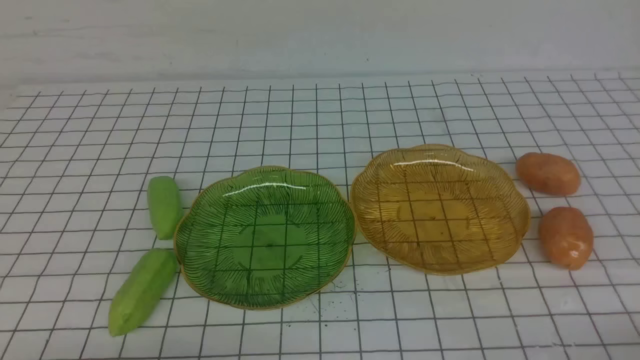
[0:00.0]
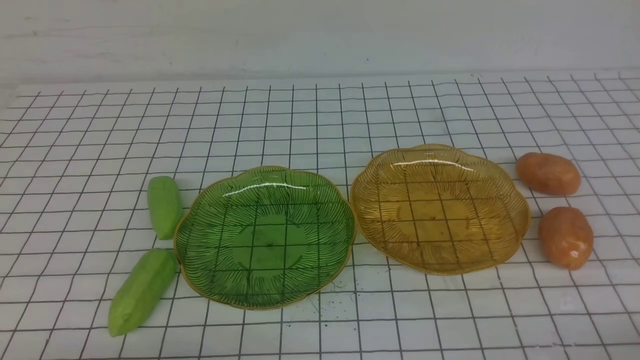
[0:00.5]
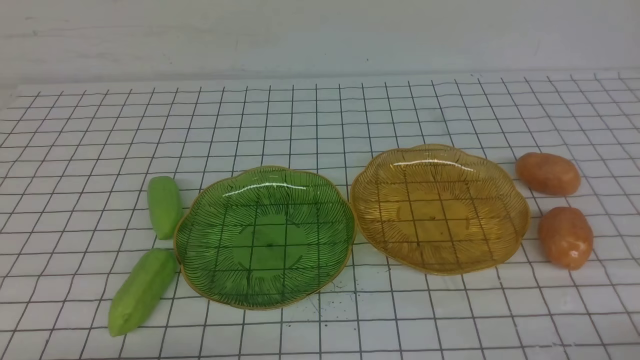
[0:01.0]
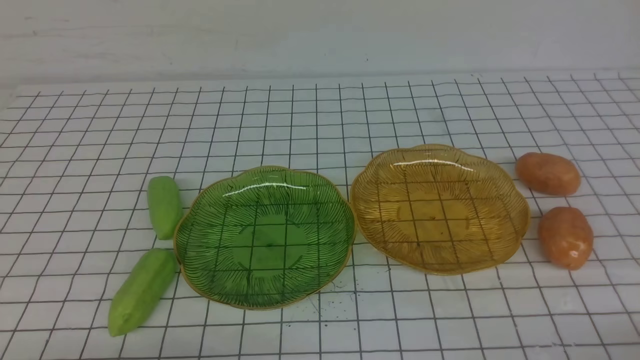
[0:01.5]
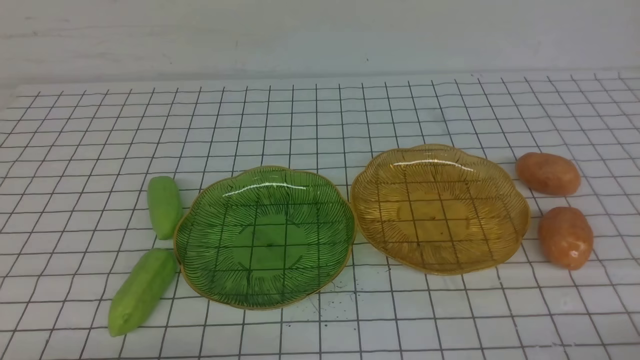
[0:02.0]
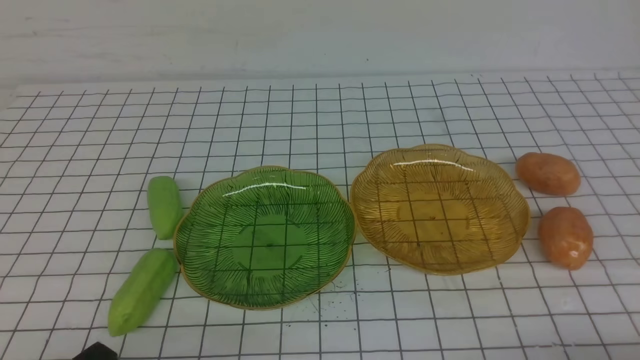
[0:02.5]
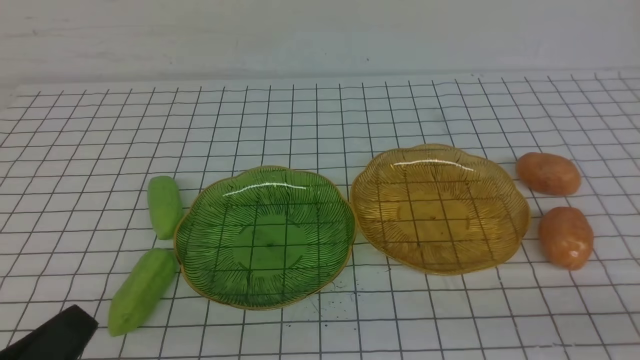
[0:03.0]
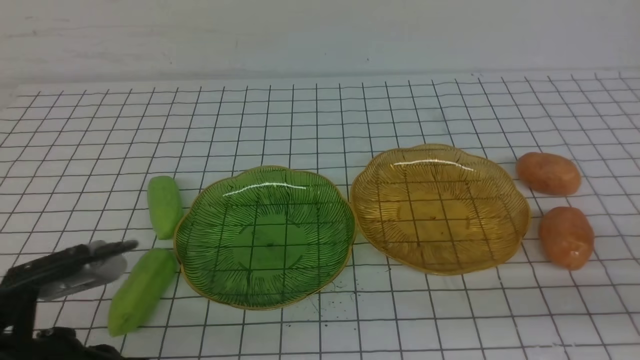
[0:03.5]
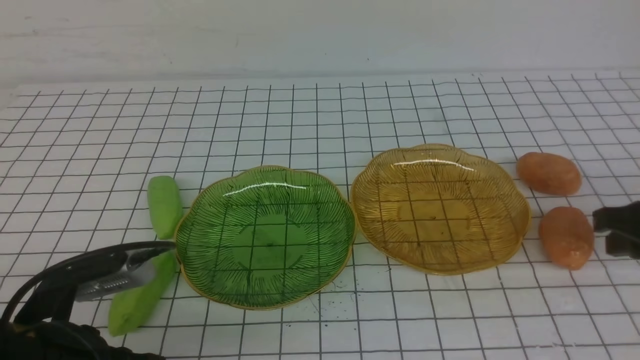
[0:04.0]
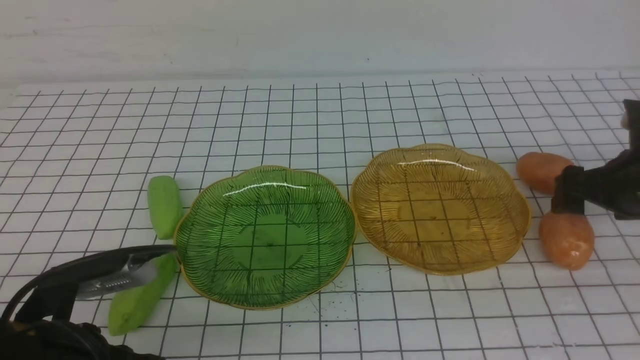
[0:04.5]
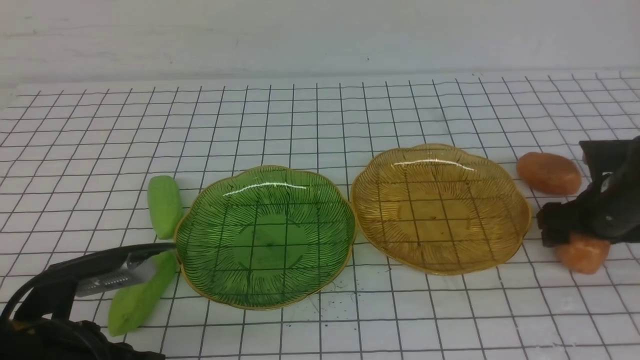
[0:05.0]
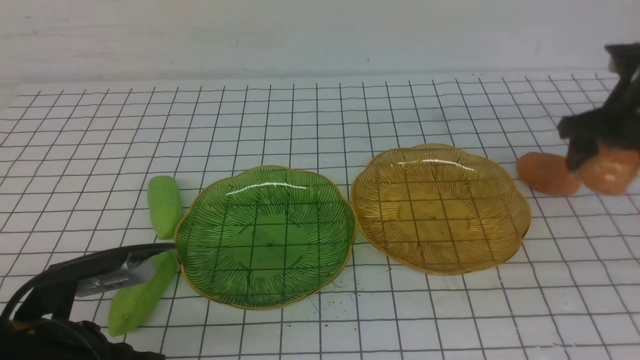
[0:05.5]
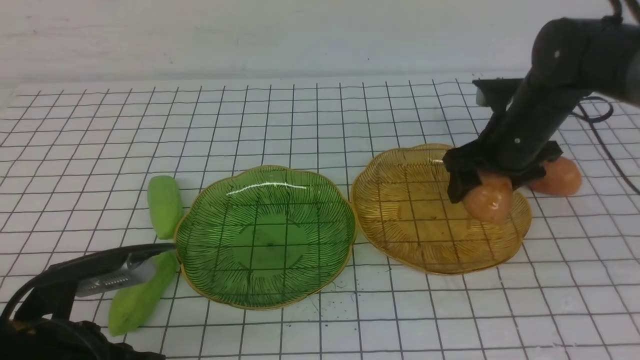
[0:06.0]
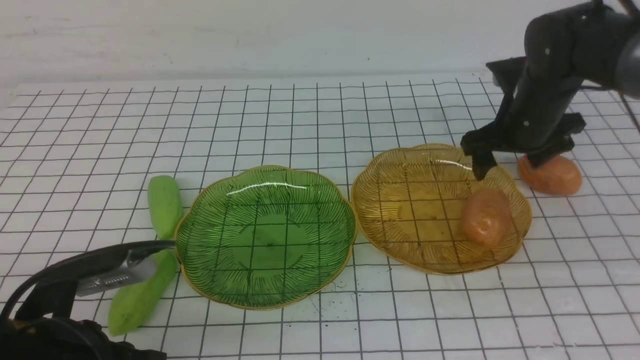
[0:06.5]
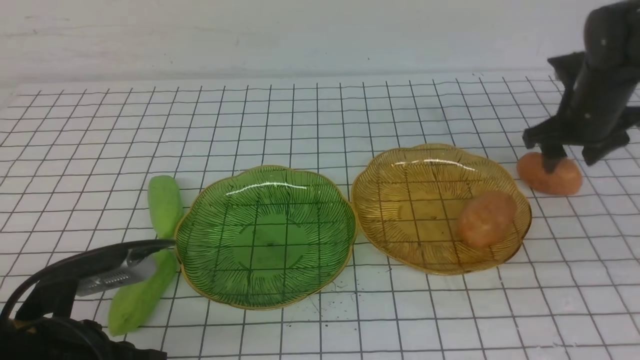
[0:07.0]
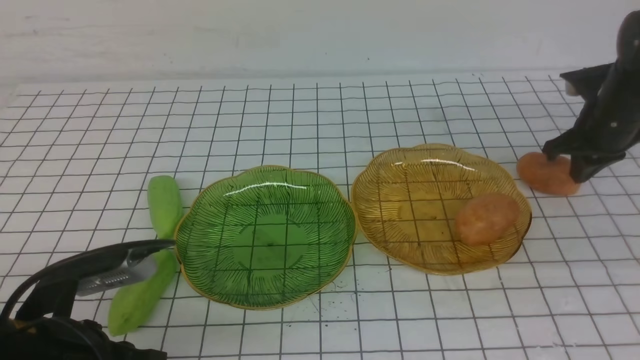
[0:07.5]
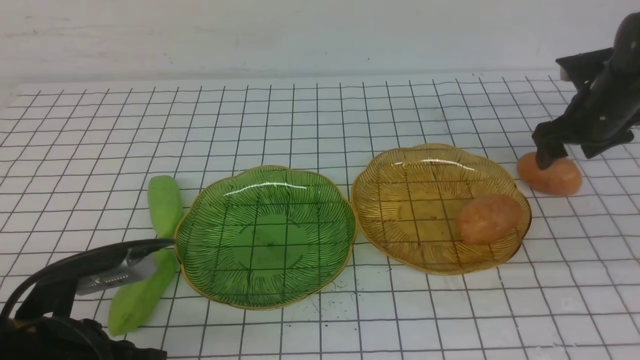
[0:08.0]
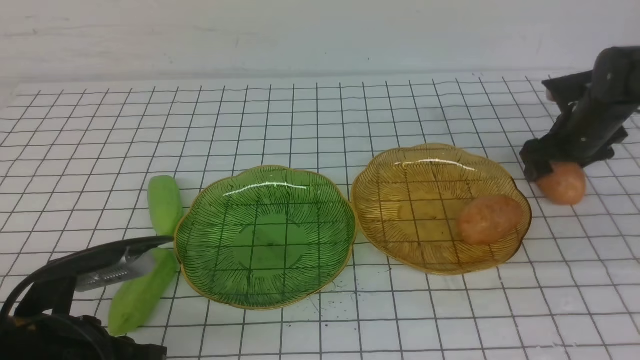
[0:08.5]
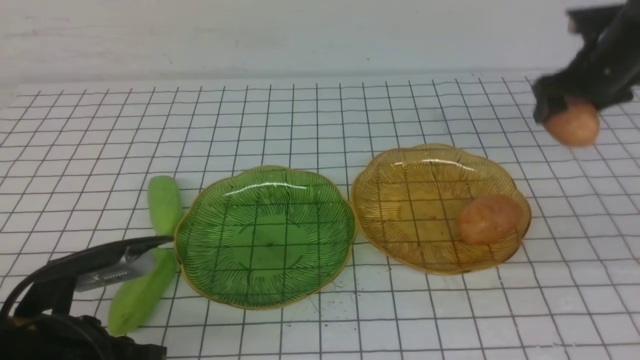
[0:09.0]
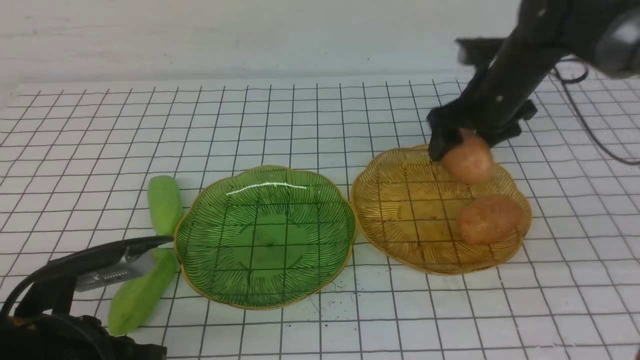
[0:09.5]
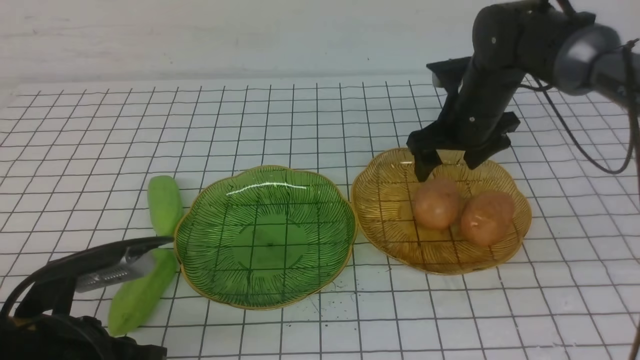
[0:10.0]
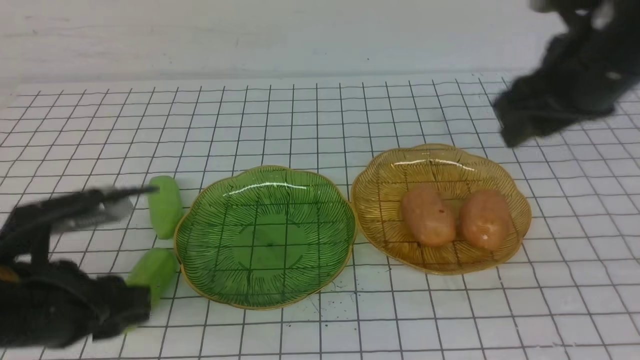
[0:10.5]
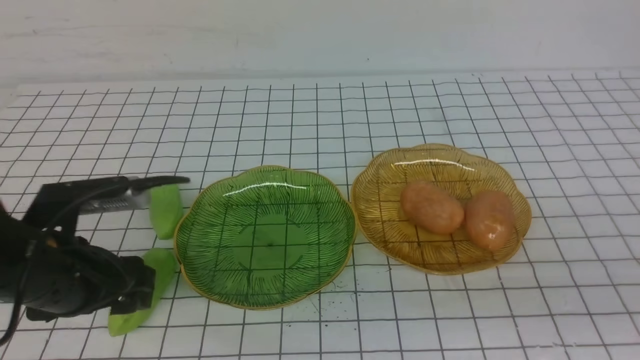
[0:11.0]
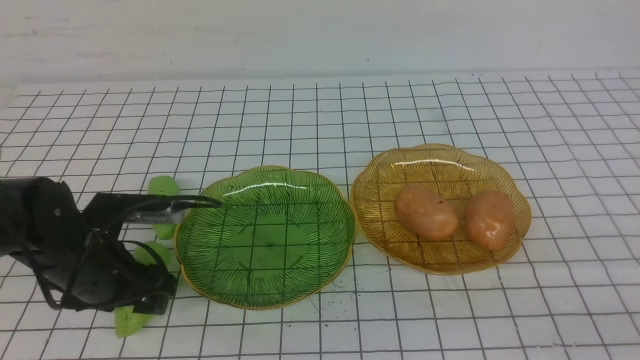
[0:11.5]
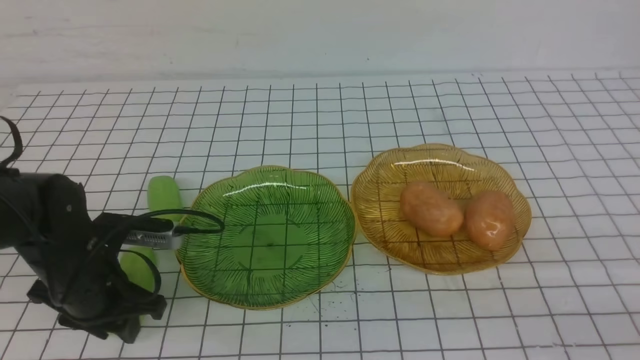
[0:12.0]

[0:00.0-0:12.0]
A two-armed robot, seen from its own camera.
Step, 0:00.0 to 0:09.5: Grab a potato with your right arm and put it on the right plate.
0:02.0 to 0:04.0: The left gripper goes roughly 10 cm forward; the right gripper is displaced forward and upward by about 20 cm.
0:04.0 to 0:06.0: The right gripper travels forward and to the left by some 20 cm, and opens its fingers.
0:06.0 to 0:08.0: The right gripper moves to the right and forward, some 10 cm, and closes and opens again.
0:08.0 to 0:10.0: The right gripper moves to the left, about 15 cm.
0:10.0 to 0:12.0: The left gripper heads forward and downward, covering approximately 15 cm, and opens. Meanwhile the right gripper goes about 40 cm backward, and closes up.

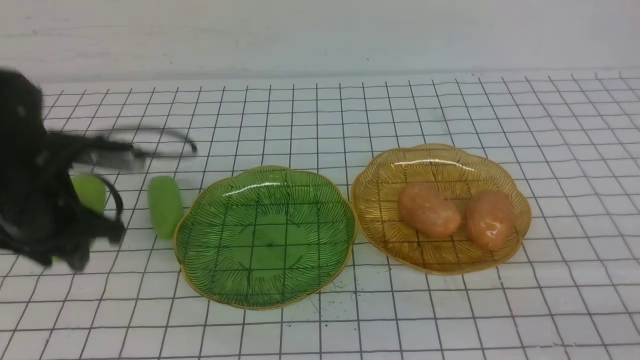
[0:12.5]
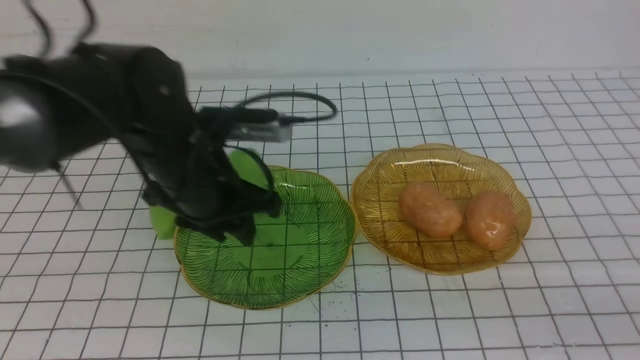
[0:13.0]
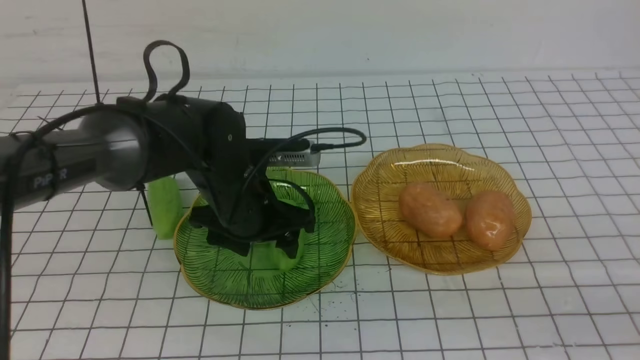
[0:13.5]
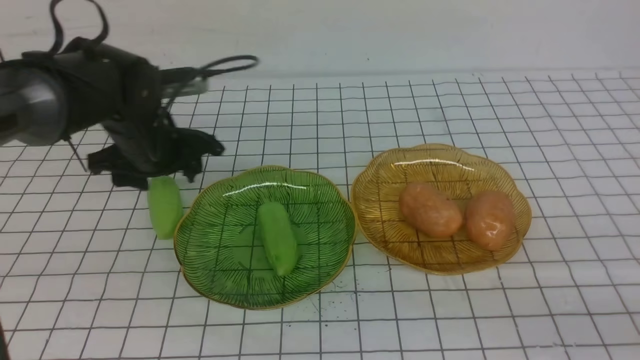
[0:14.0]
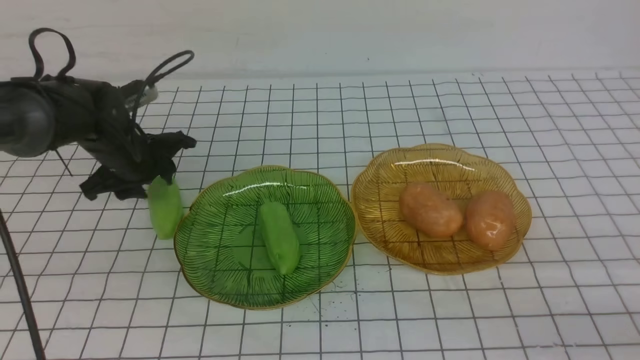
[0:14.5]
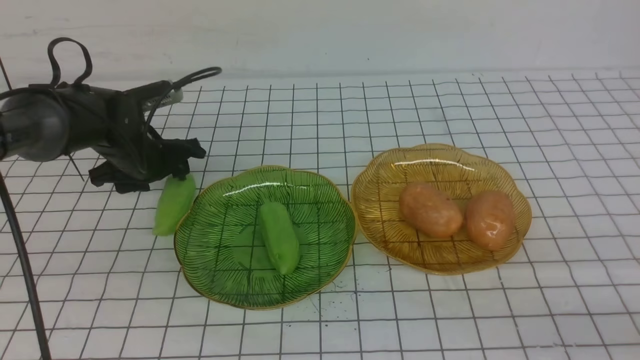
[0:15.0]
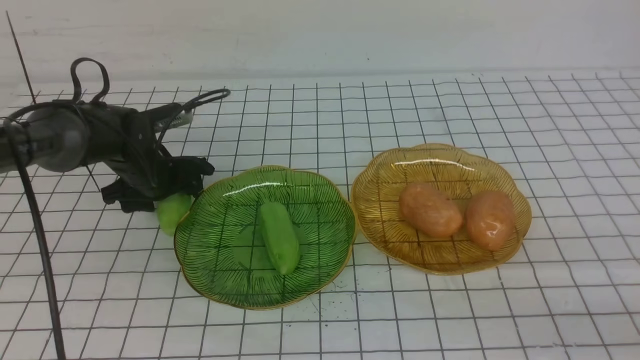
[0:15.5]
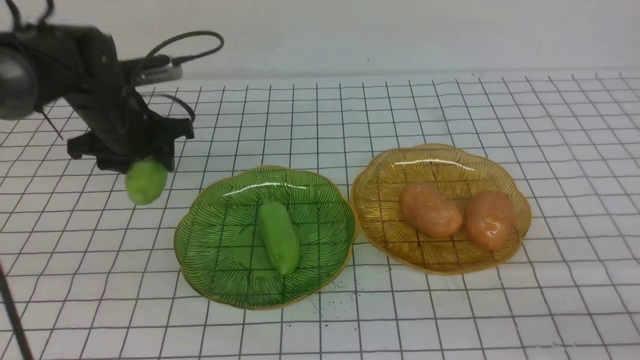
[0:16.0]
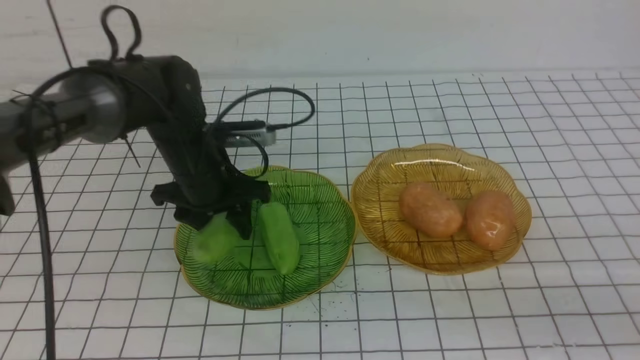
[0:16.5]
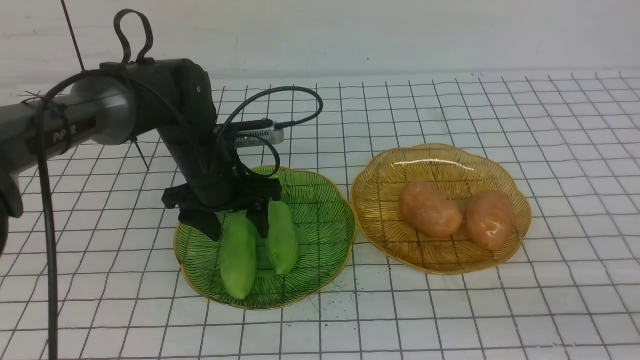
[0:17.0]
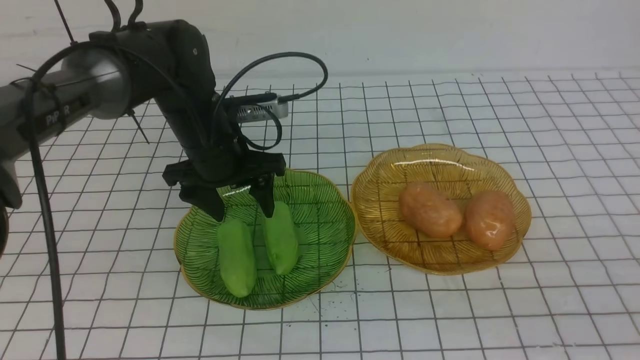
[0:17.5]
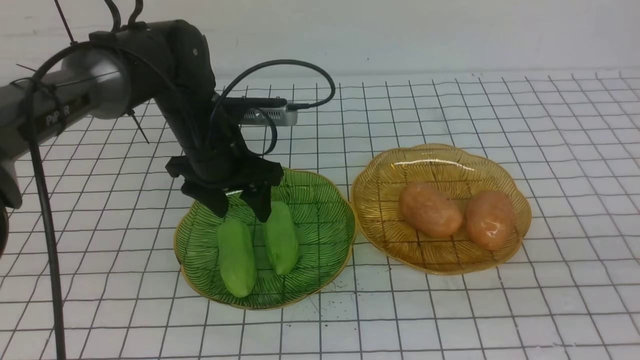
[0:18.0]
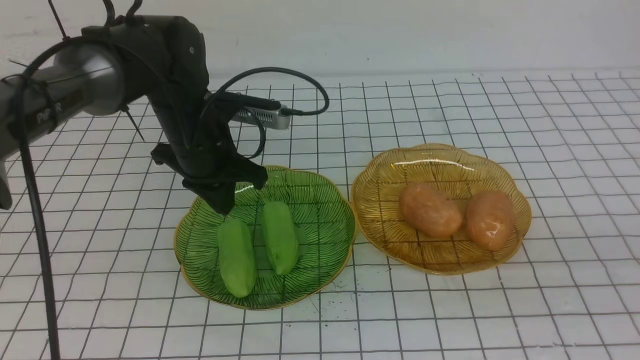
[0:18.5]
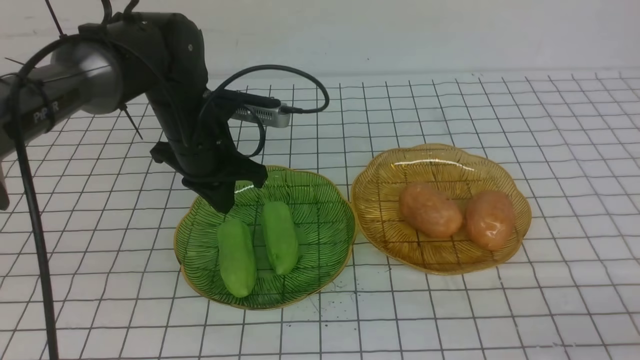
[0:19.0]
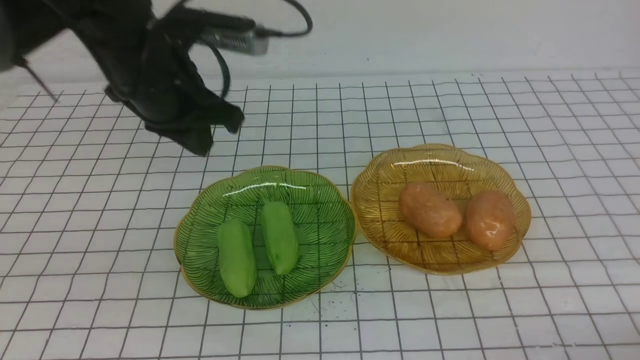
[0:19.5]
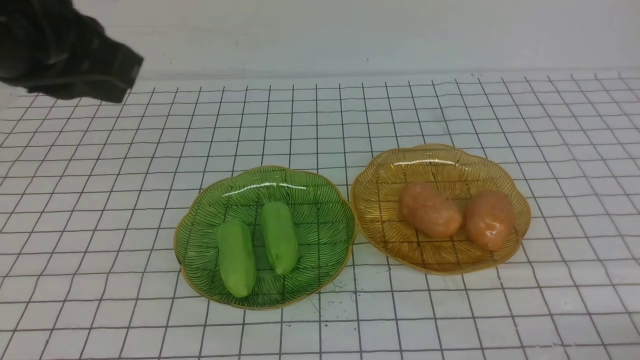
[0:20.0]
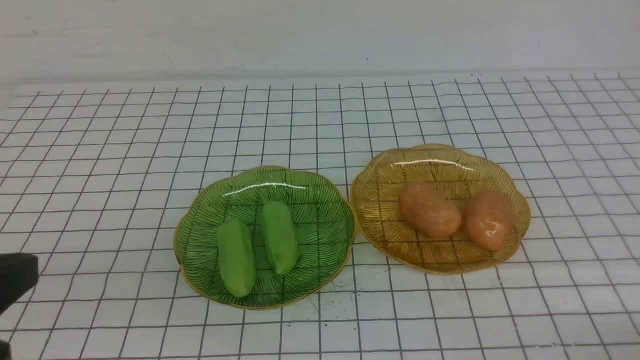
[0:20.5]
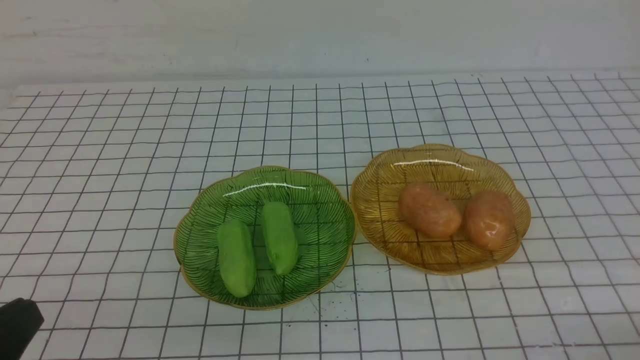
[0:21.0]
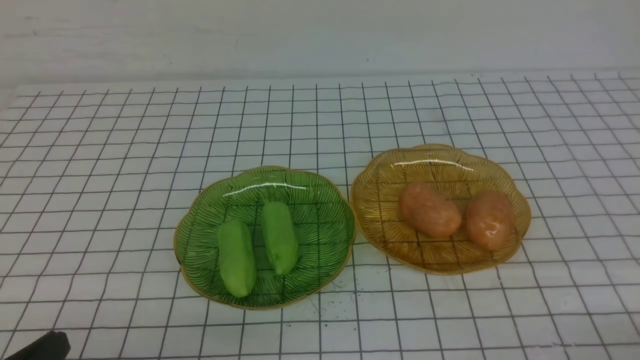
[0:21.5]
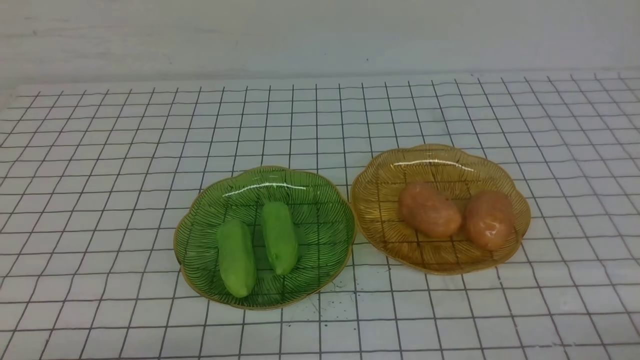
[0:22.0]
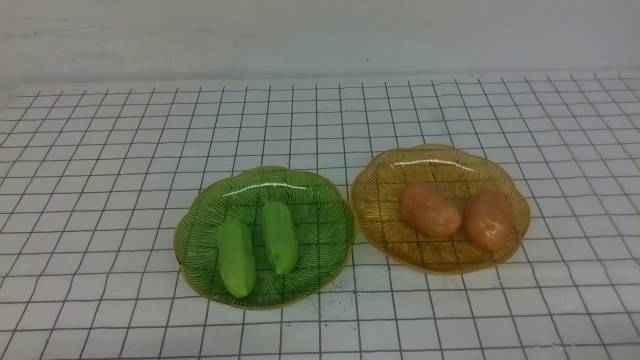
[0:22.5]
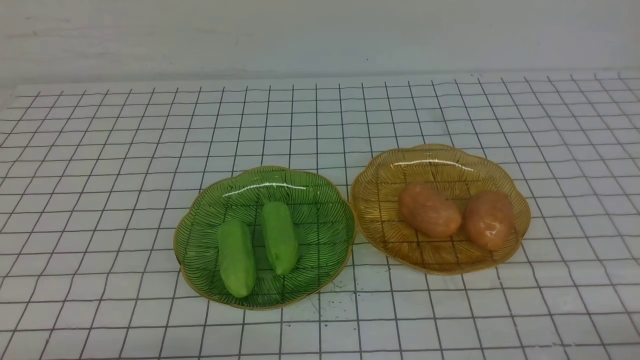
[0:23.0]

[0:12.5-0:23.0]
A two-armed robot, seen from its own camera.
Step, 0:14.0 to 0:17.0: use the left arm to grab a chayote and put it into the left plate.
0:12.5 to 0:14.5: The left gripper shifts approximately 15 cm forward, and goes to the right and returns, some 15 cm each way.
0:14.5 to 0:16.5: The left gripper moves to the right, roughly 10 cm.
0:16.5 to 0:19.0: The left gripper closes up; the right gripper changes place by roughly 5 cm.
0:19.0 to 0:21.0: The left gripper shifts roughly 35 cm backward; the right gripper is displaced downward by approximately 10 cm.
0:21.0 to 0:23.0: The left gripper goes roughly 10 cm downward.
